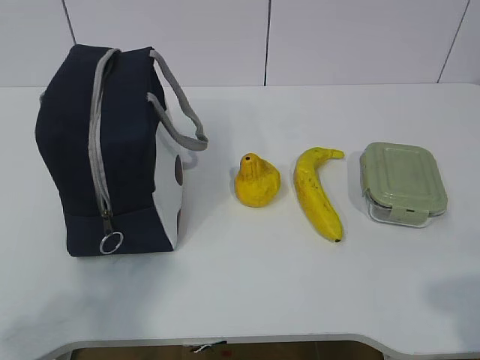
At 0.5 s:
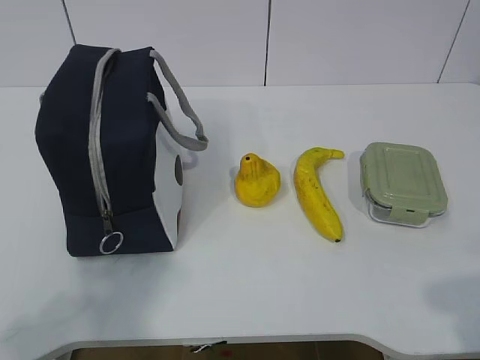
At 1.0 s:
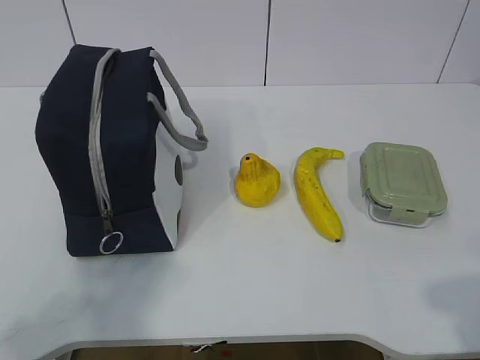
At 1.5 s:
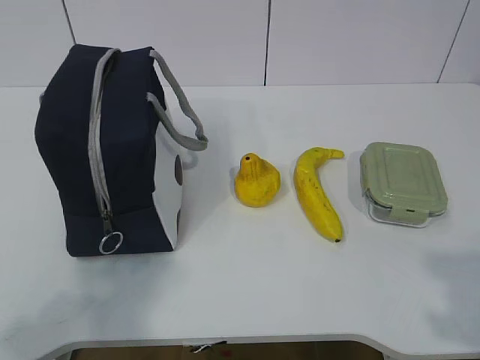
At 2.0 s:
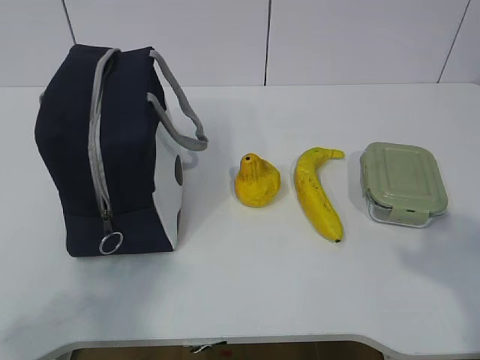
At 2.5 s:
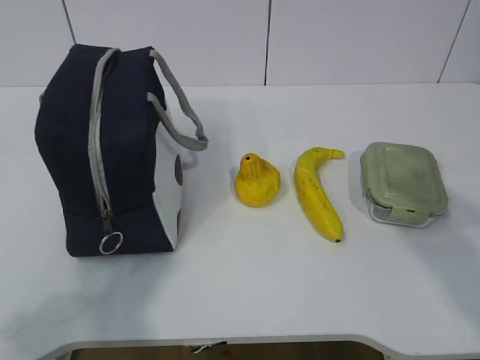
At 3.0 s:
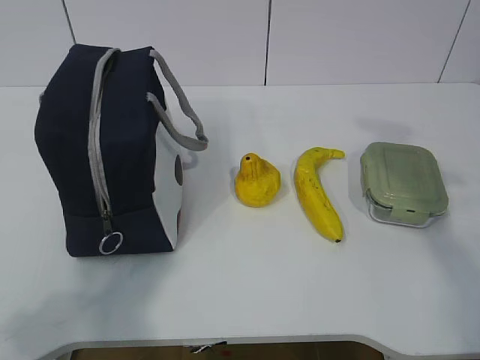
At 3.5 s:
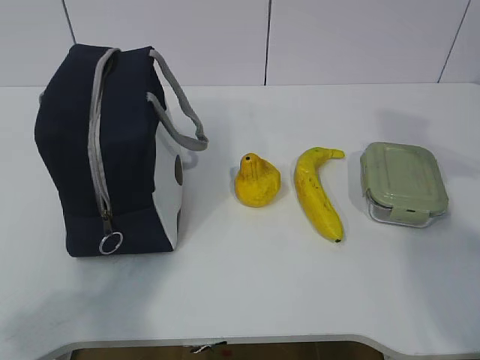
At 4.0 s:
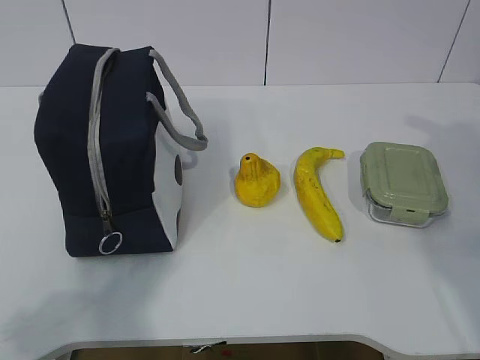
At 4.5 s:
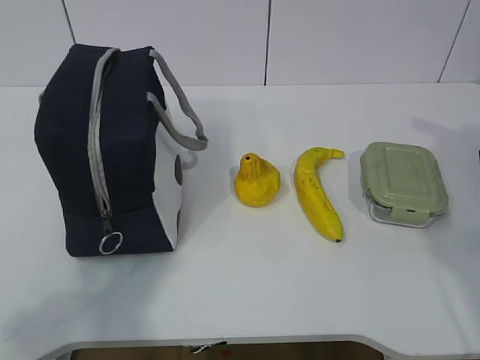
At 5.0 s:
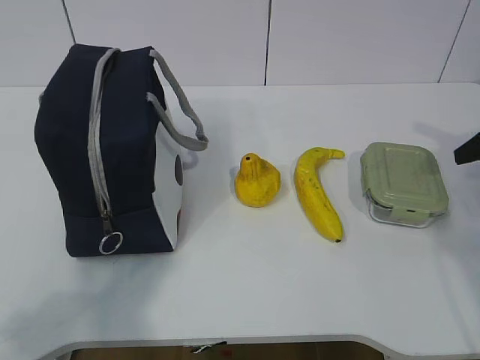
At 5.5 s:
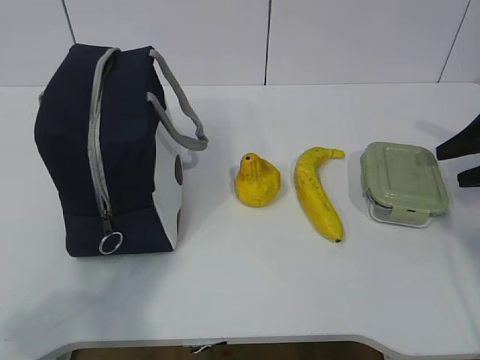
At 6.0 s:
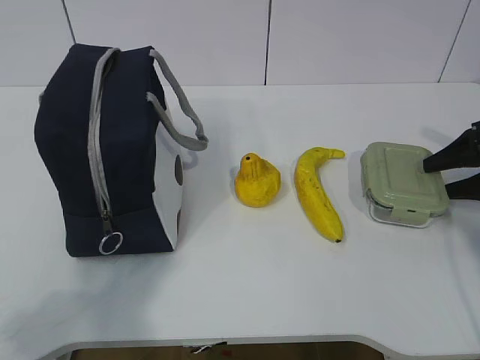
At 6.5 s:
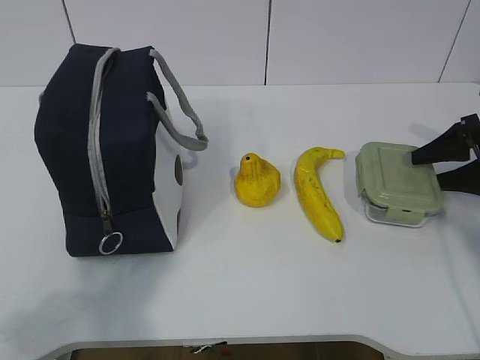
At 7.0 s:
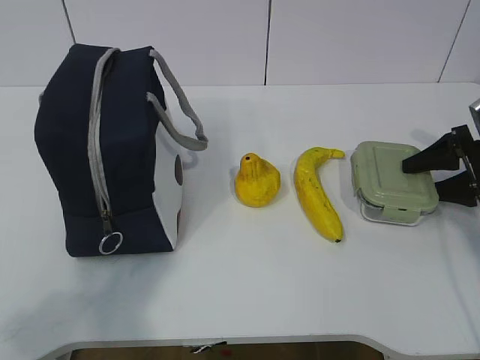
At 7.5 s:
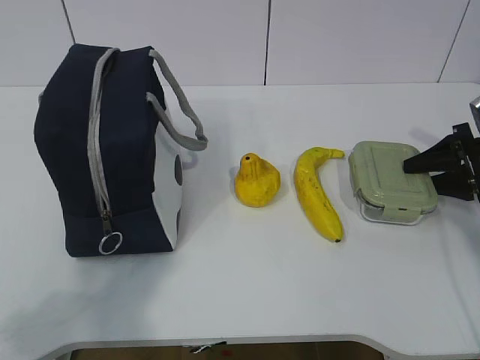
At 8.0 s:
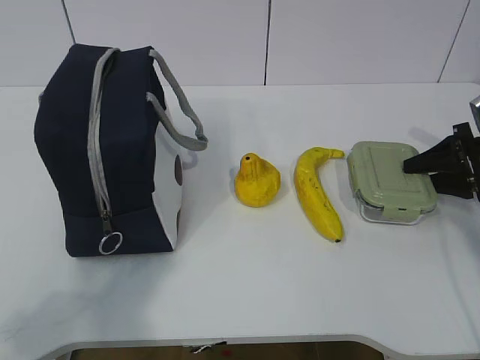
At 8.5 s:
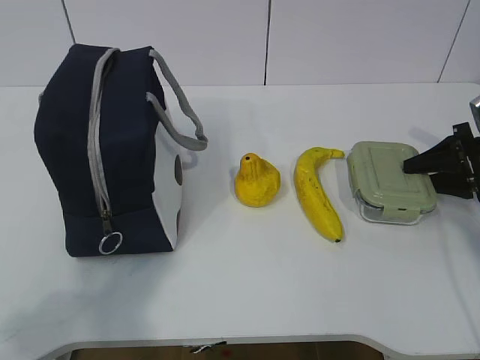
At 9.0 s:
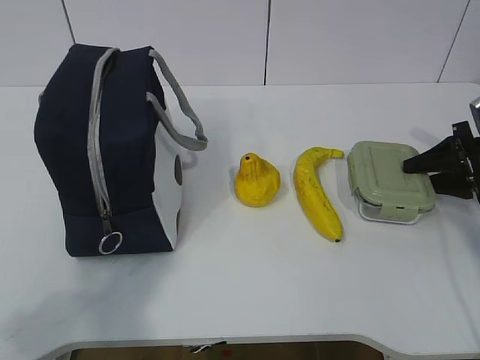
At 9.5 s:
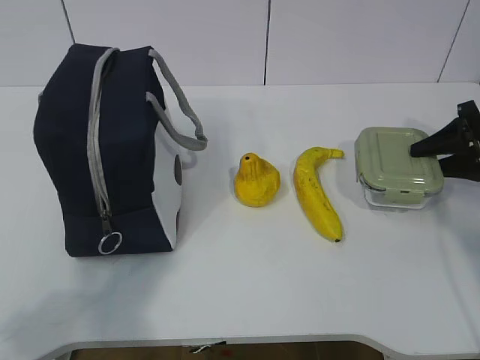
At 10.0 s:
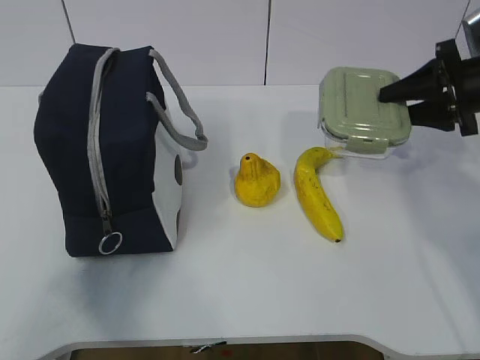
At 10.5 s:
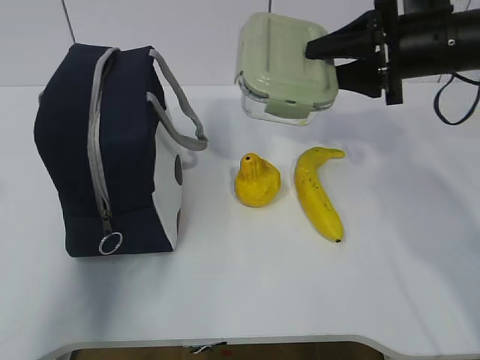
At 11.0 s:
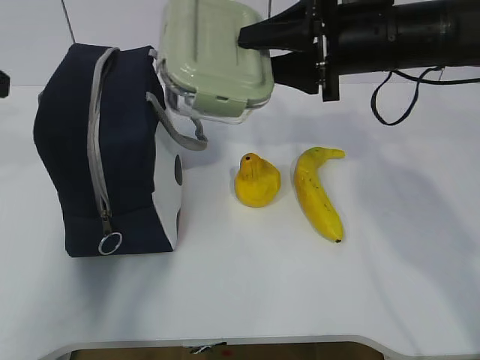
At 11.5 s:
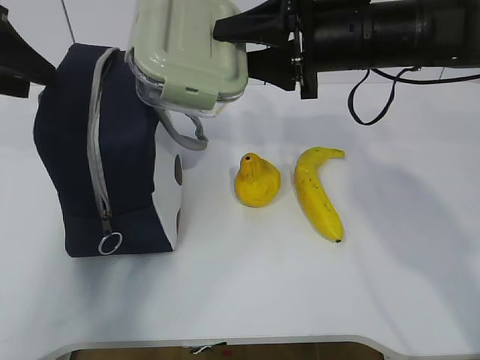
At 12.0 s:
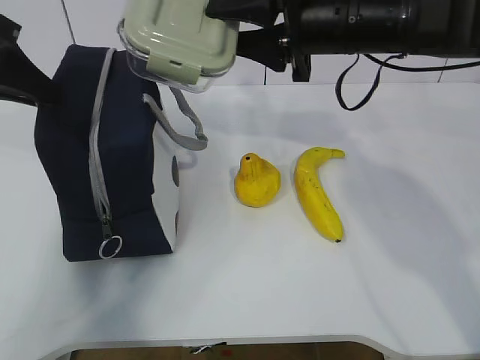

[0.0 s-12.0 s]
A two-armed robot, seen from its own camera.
Step, 0.0 to 8.0 s: Grasp the box with the right gripper.
2.0 to 4.0 s: The right gripper moves forward, some 25 cm.
4.0 to 6.0 s: The right gripper goes roughly 15 cm downward and forward, and opens.
6.0 to 8.0 s: There are only small adjustments of the grippers.
8.0 to 10.0 s: The right gripper goes roughly 10 cm upward and to the left.
10.0 to 12.0 s: The left gripper is displaced forward by about 30 cm, and closes its fingers, while the right gripper moves to the left, about 20 cm.

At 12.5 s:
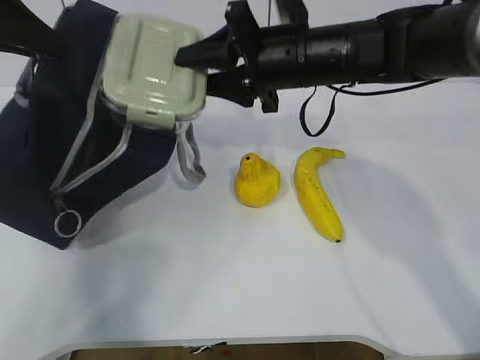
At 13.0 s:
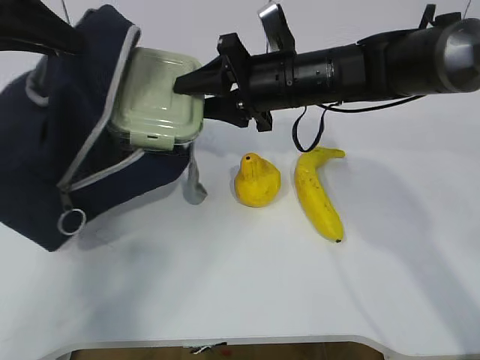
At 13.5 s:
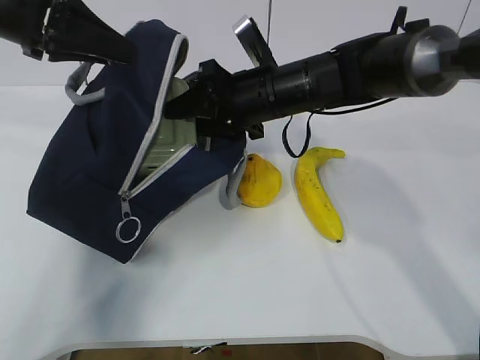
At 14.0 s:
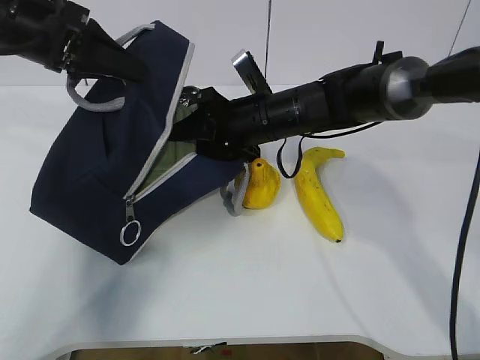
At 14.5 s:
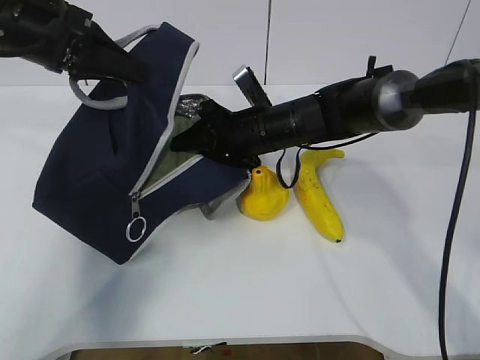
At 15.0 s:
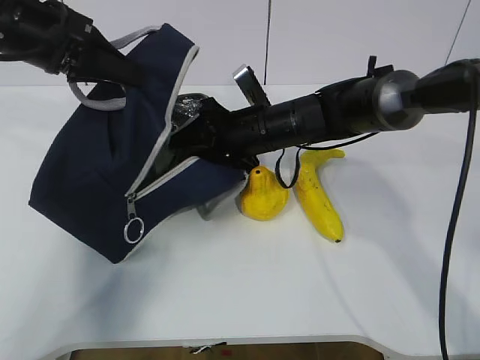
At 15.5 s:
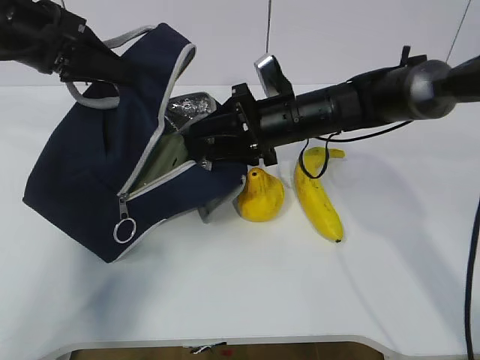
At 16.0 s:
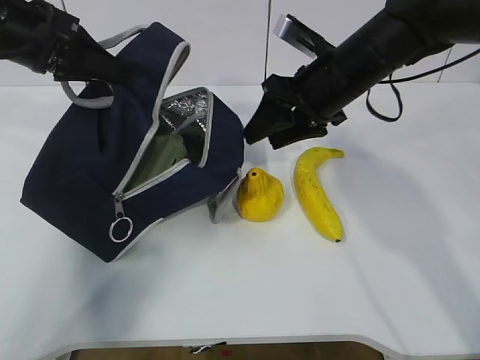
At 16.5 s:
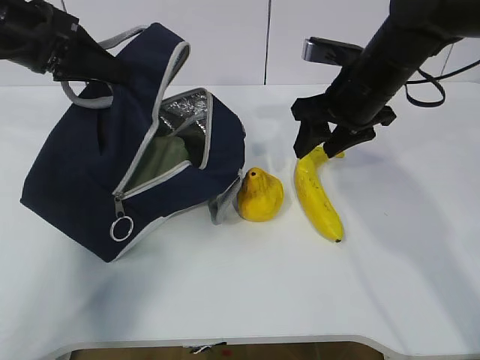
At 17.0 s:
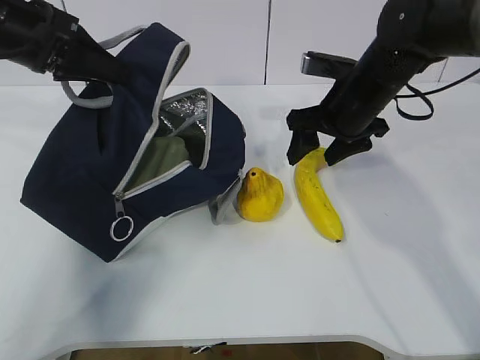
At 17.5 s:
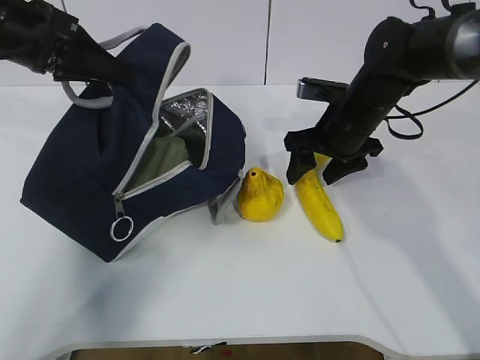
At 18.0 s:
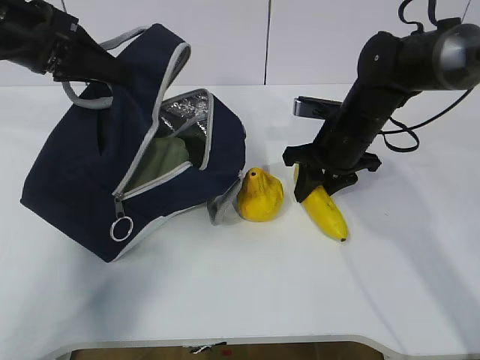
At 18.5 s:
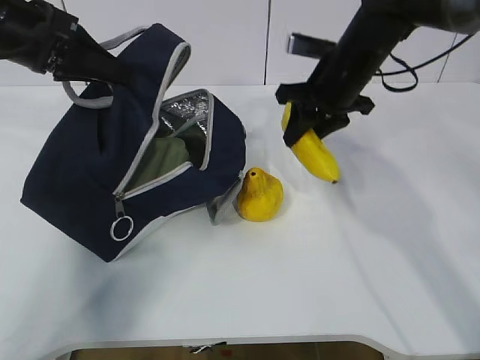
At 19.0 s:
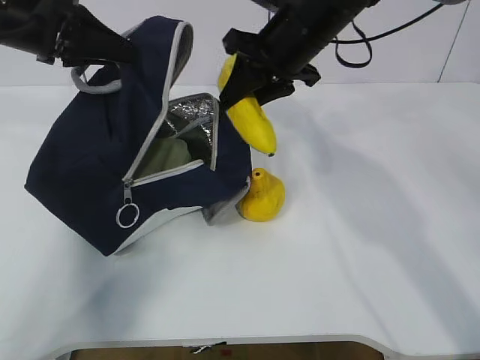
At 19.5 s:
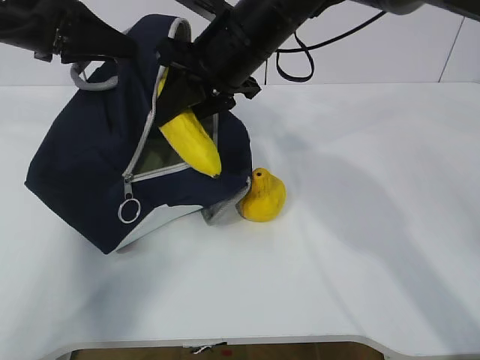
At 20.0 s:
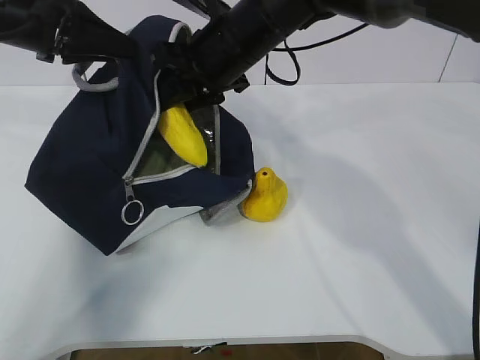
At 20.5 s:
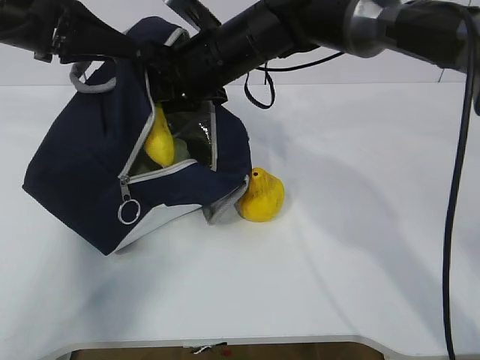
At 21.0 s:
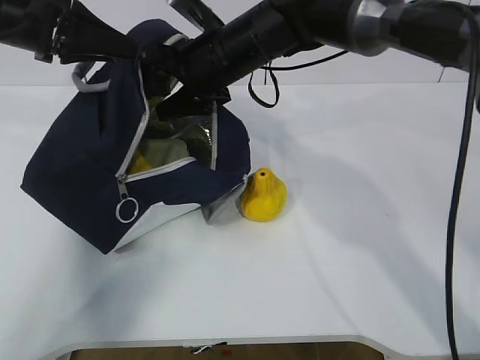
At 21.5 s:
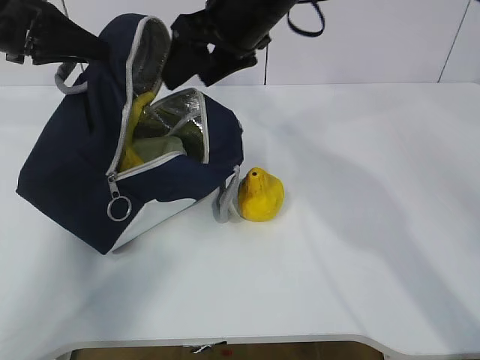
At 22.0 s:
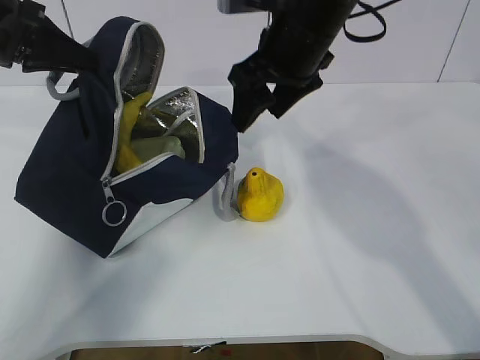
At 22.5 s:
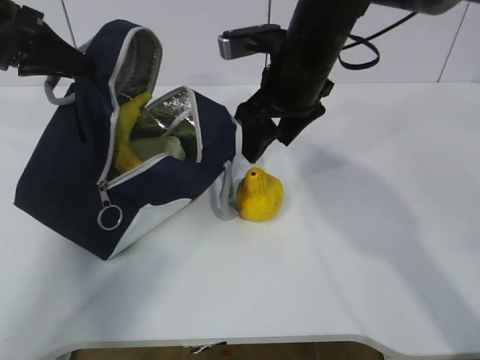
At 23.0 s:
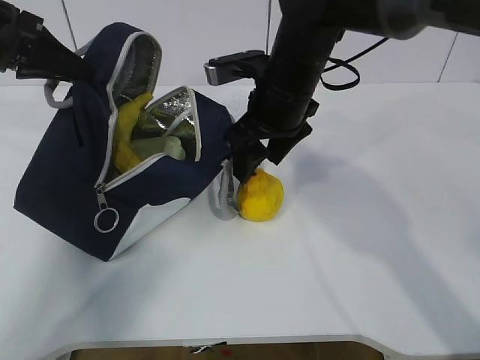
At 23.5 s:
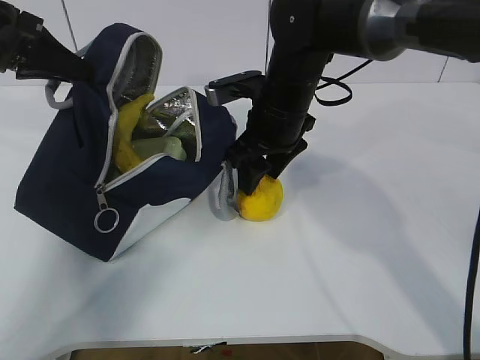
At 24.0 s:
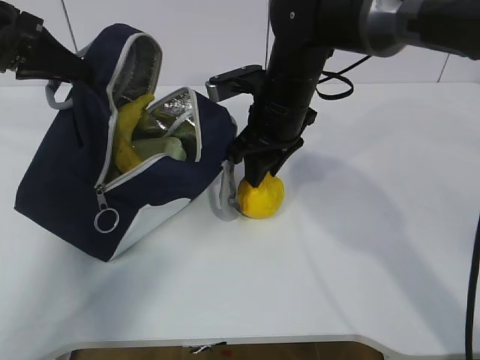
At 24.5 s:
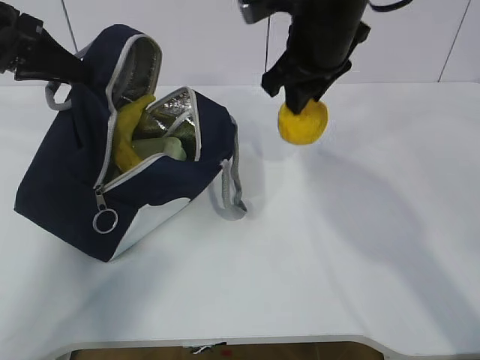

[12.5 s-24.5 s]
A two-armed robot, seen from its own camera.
Step, 12.5 to 15.5 s: Place the box into the package with the right gripper.
Step, 16.0 to 18.0 s: Grasp the banana with the right gripper.
Step, 18.5 to 21.5 s: Place the banana into the package with the right gripper.
Step, 22.0 to 23.5 s: Grasp the pear with the right gripper.
12.5 to 14.5 s: The right gripper shifts some 10 cm downward; the left gripper is displaced downward and to the right by approximately 10 cm.
14.5 to 16.5 s: The right gripper shifts approximately 15 cm to the right and upward.
16.5 to 18.5 s: The right gripper moves approximately 10 cm downward and comes back.
18.5 to 20.5 s: The right gripper moves to the left, approximately 15 cm.
20.5 to 22.5 s: The right gripper goes some 10 cm to the right, and opens.
22.5 to 24.5 s: The right gripper closes its fingers.

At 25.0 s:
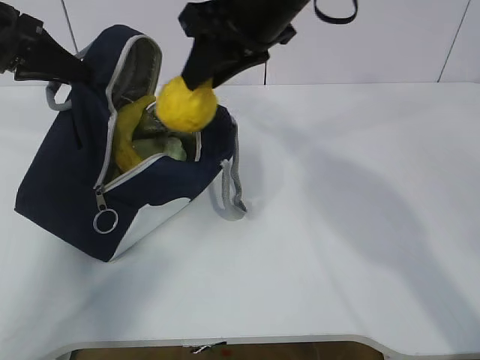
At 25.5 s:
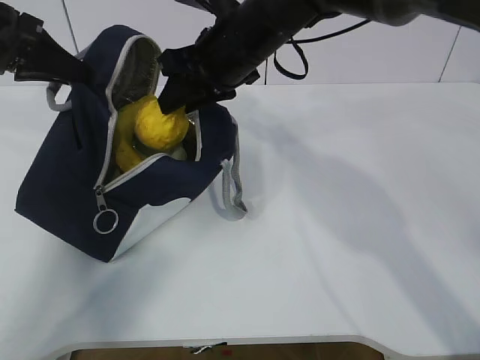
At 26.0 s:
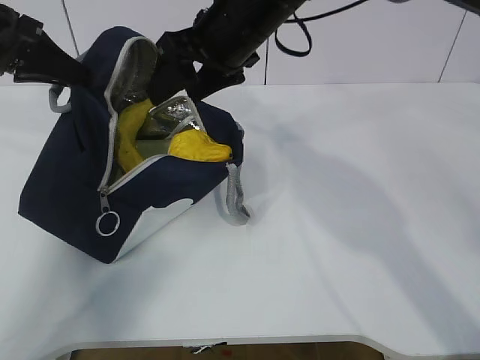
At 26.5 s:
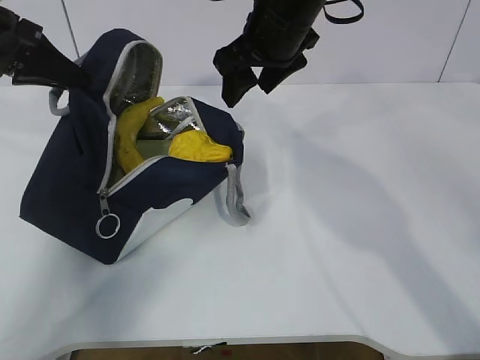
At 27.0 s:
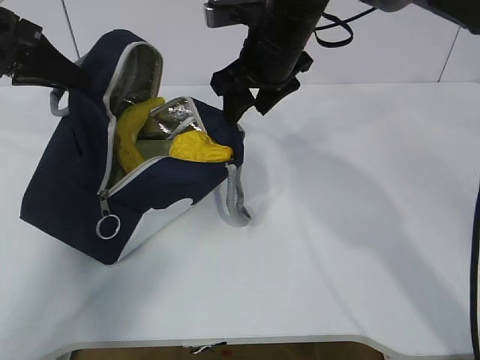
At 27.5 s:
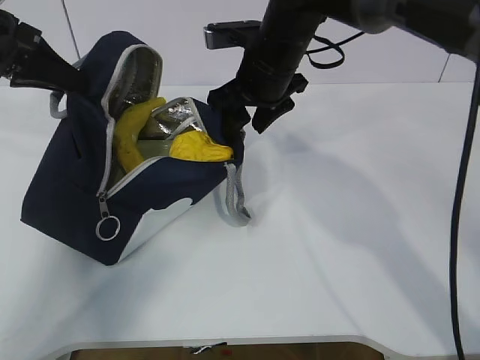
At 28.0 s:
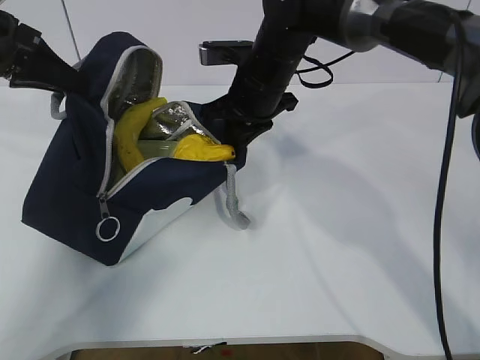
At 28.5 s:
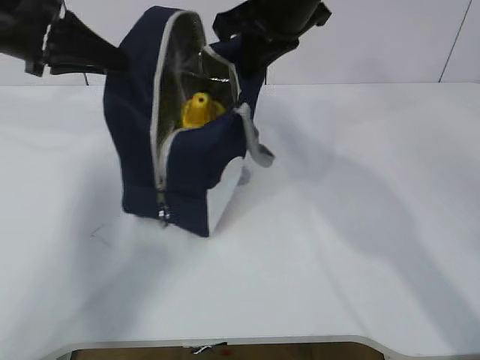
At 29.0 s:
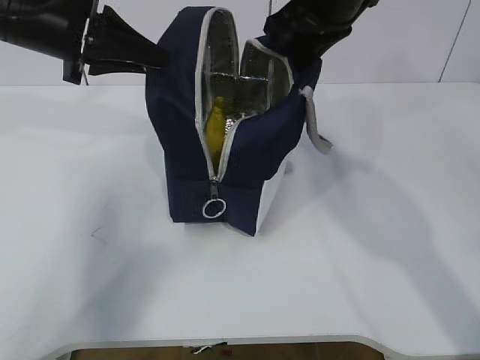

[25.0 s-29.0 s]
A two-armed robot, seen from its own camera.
25.0 to 27.0 s: The right gripper shifts roughly 10 cm downward and forward, and opens its fingers.
27.0 to 29.0 s: The right gripper is displaced upward by approximately 5 cm, and closes its fingers. The left gripper moves to the right, about 10 cm.
